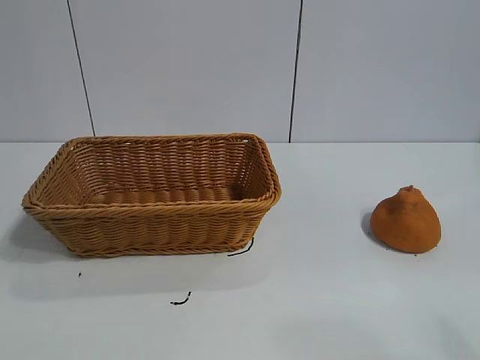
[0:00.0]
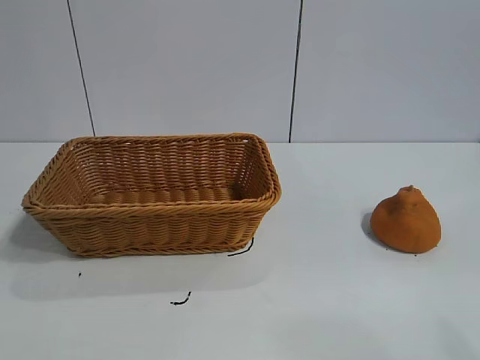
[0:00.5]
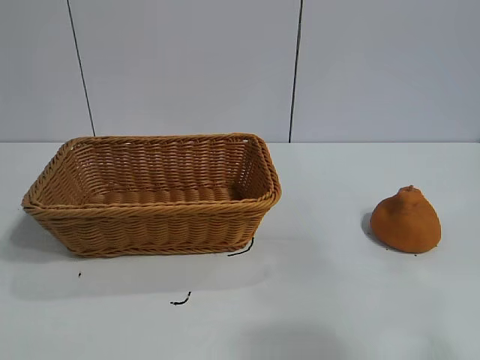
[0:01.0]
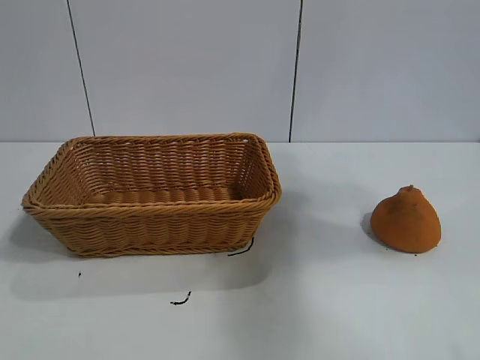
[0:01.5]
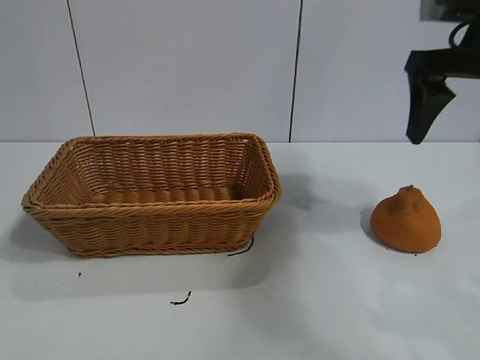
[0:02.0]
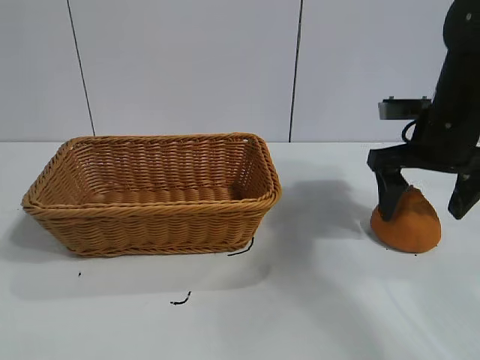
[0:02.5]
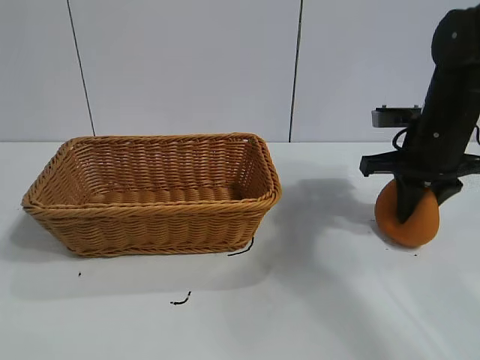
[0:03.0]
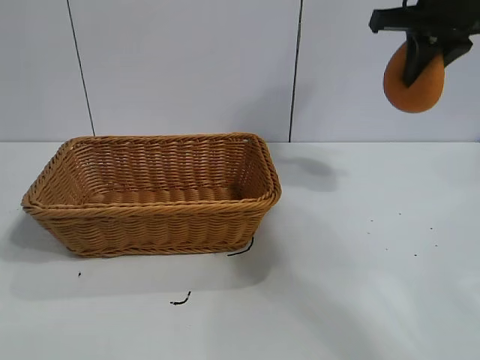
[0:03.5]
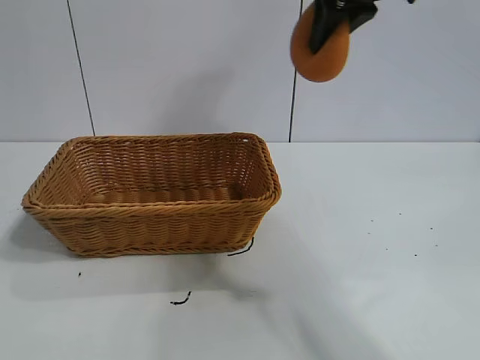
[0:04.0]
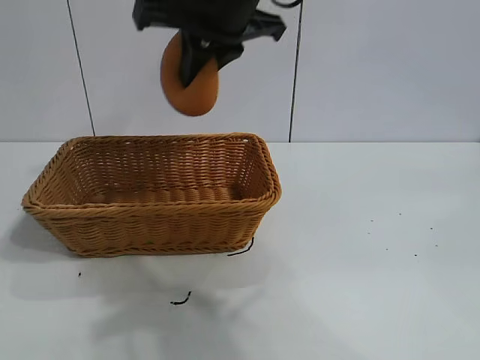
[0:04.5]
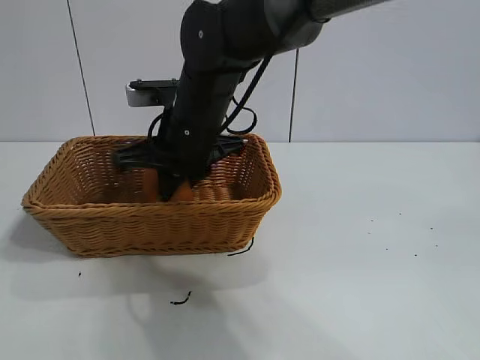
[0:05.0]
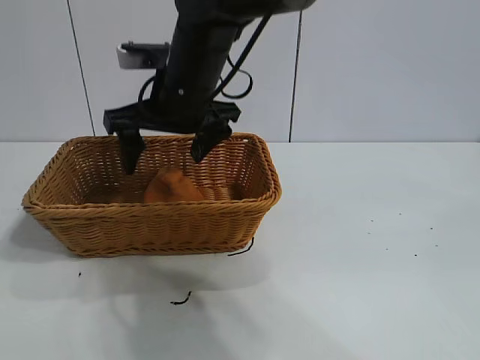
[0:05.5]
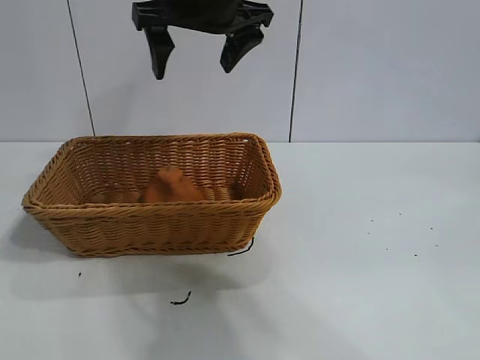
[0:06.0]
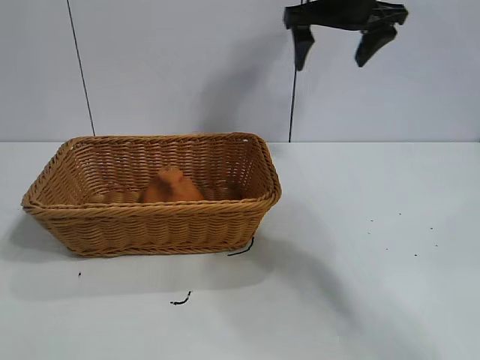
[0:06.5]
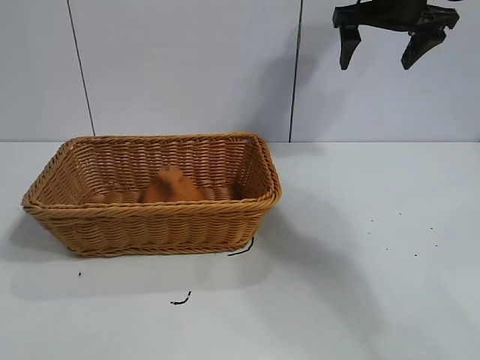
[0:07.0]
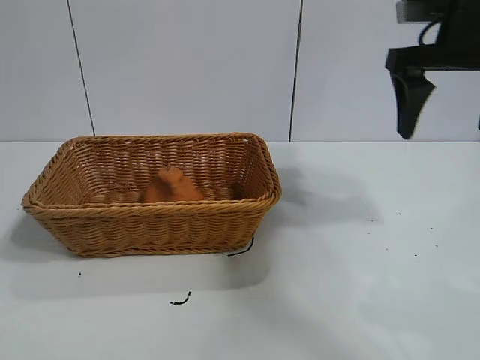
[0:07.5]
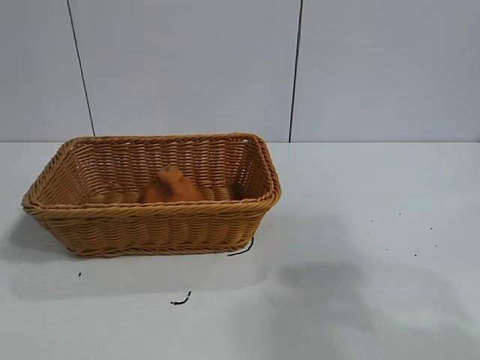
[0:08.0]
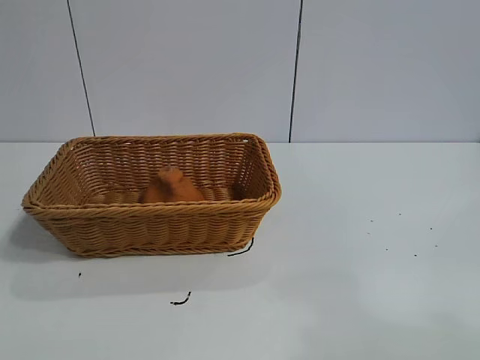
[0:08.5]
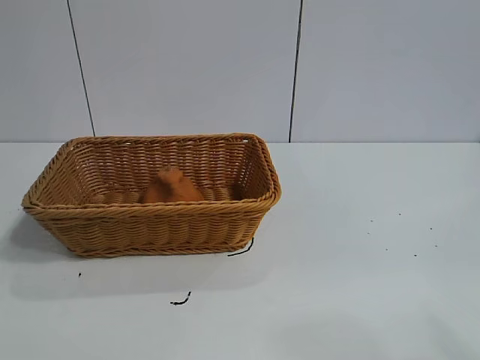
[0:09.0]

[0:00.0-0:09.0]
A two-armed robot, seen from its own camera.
Task of the whole recording: pick up the orange and put it into the basket.
Step, 0:01.0 to 0:03.0: Grasp the orange with right gripper.
Step, 0:03.5 to 0:05.0: Place the orange in the basket with right gripper.

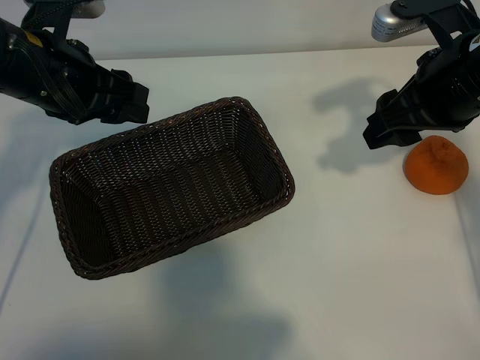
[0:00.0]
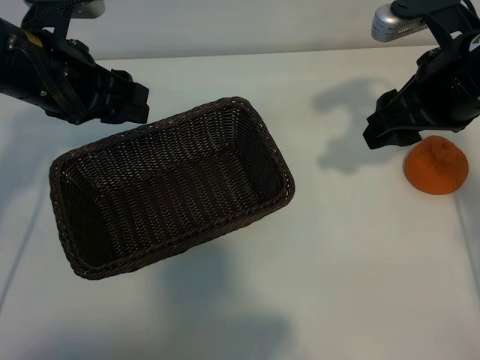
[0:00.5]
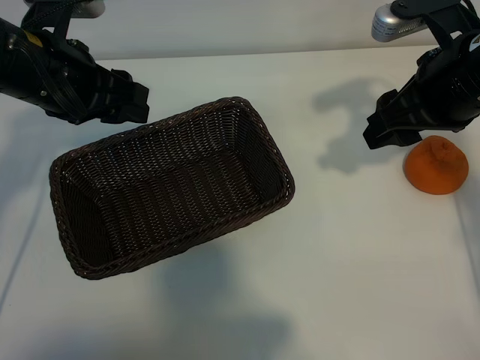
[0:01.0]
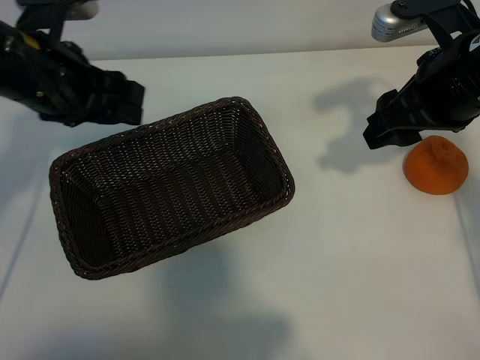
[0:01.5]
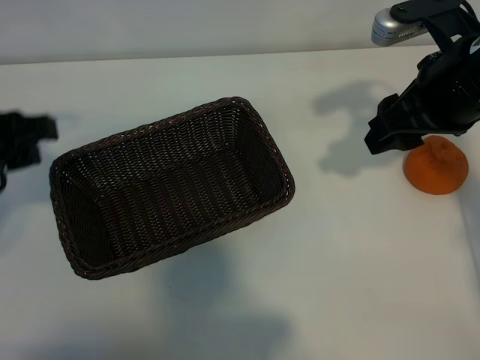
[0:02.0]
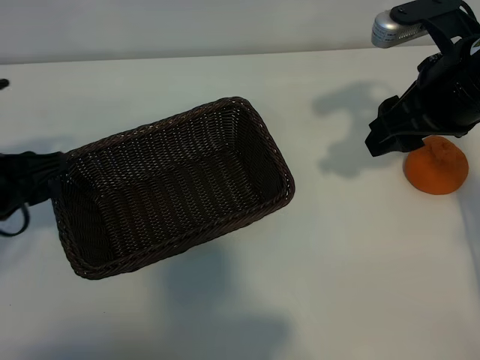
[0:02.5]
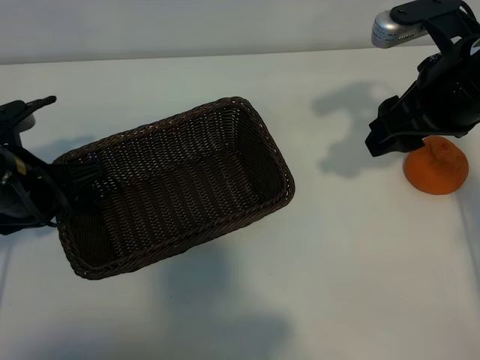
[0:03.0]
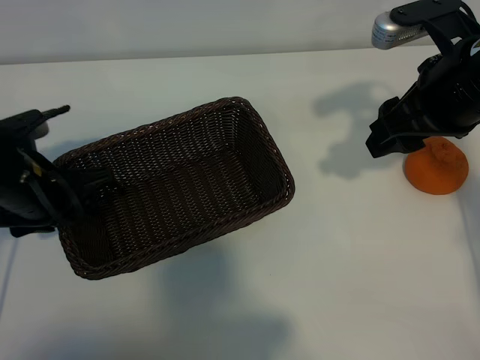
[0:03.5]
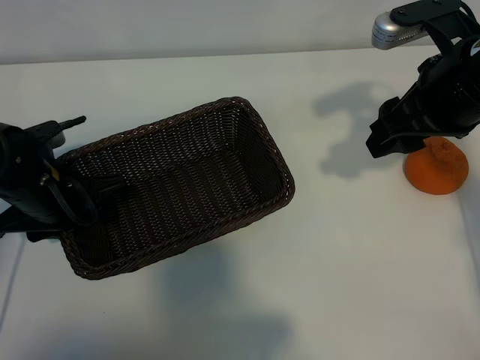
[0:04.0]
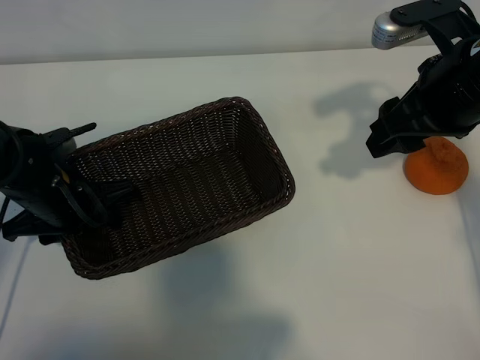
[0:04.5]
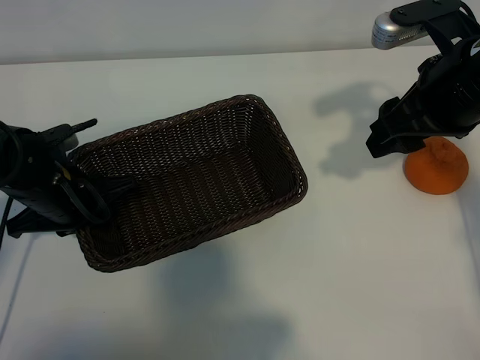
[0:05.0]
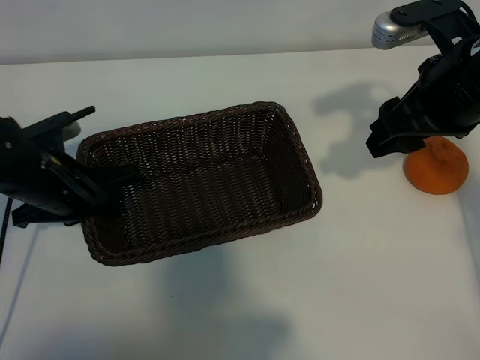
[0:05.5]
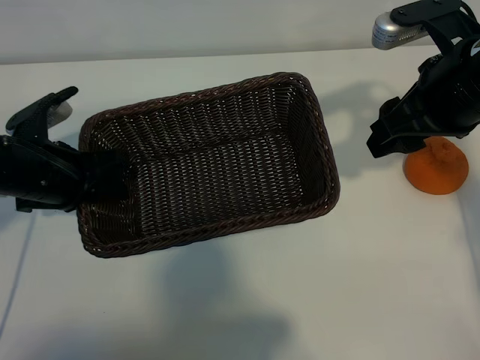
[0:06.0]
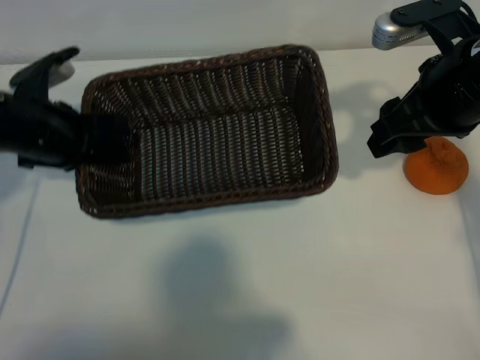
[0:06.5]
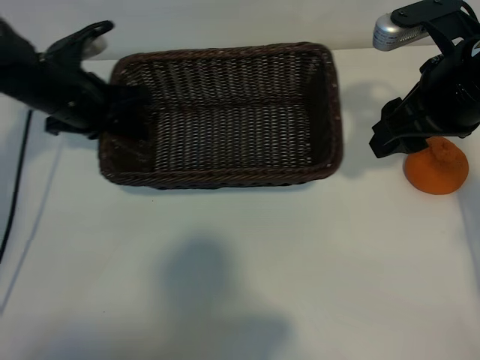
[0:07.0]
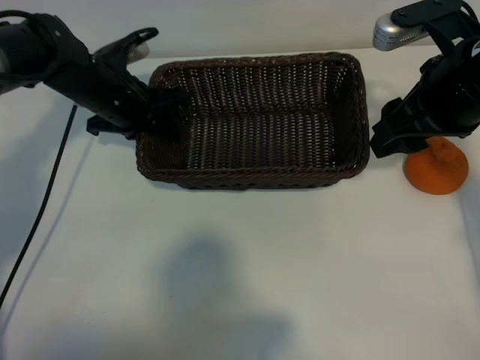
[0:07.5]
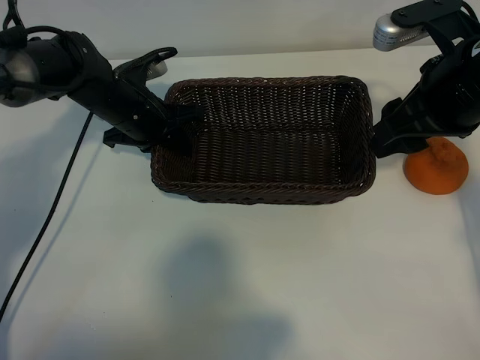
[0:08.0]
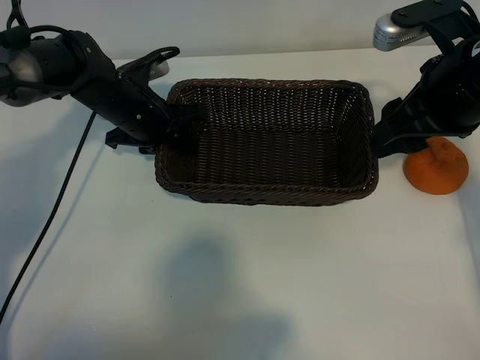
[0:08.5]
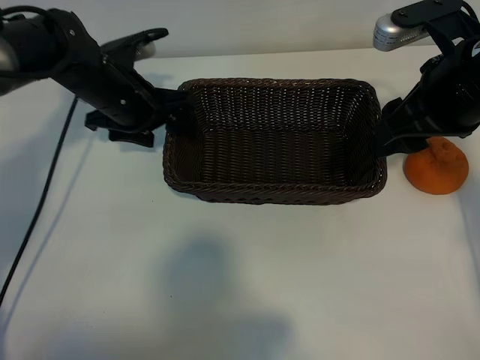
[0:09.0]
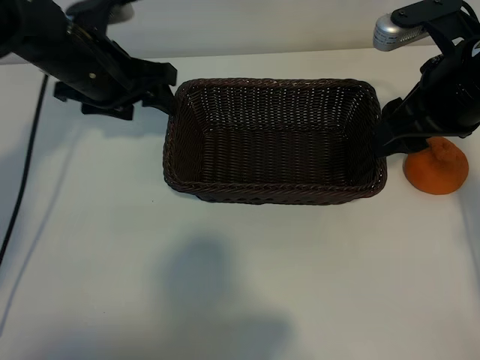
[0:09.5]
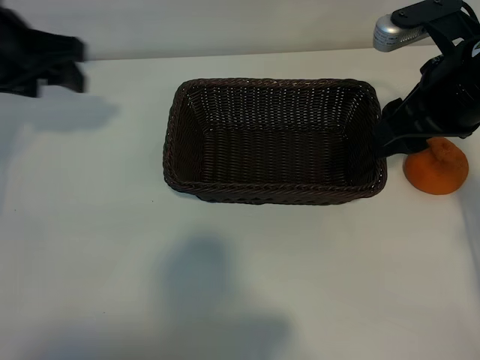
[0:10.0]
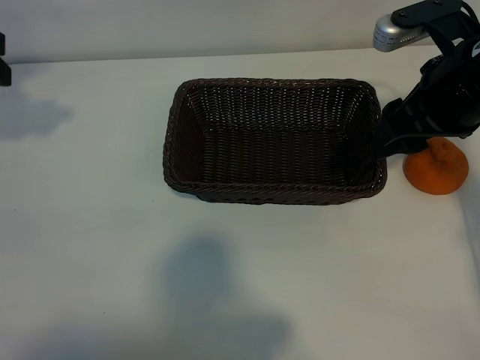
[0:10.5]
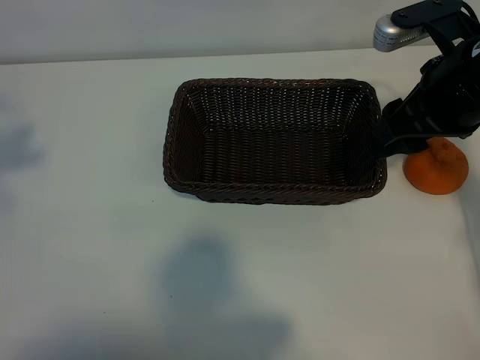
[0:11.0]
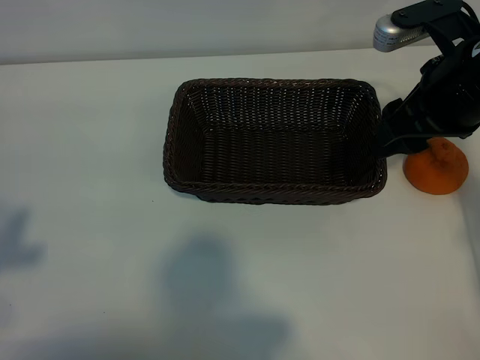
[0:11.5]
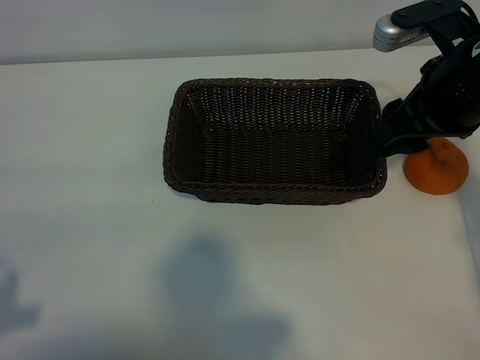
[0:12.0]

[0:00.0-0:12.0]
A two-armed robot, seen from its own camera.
Task of the whole recording: pick up the orange and put it into the basket.
Step, 0:01.5 to 0:04.5: Grasp the basket with left gripper.
Step, 0:05.0 to 0:08.5: Place the basket in the center of view with left gripper.

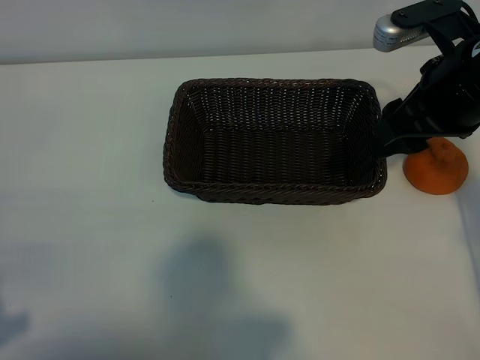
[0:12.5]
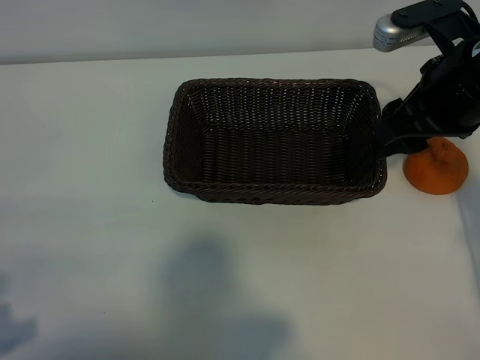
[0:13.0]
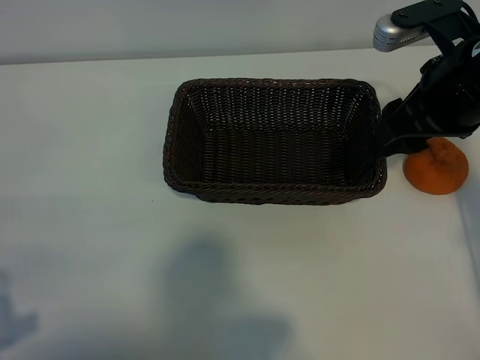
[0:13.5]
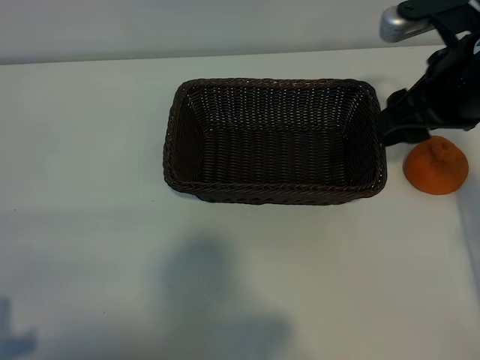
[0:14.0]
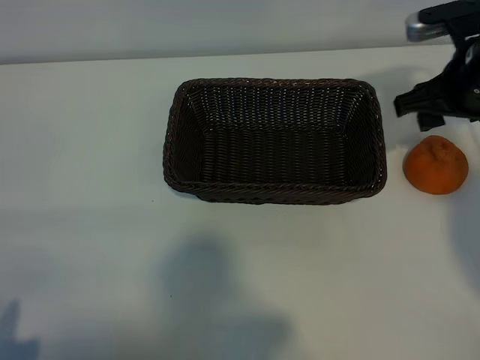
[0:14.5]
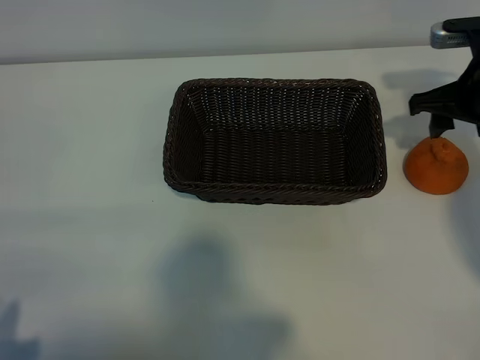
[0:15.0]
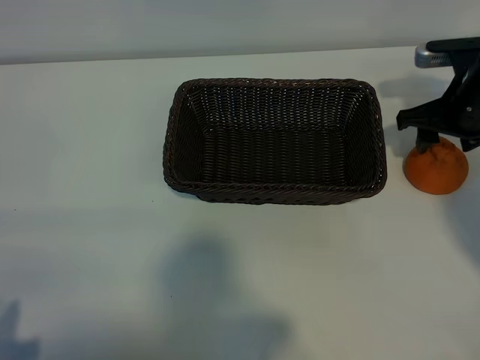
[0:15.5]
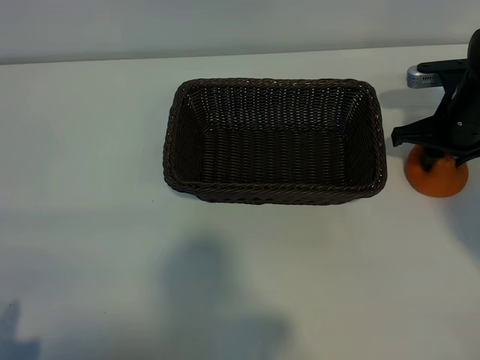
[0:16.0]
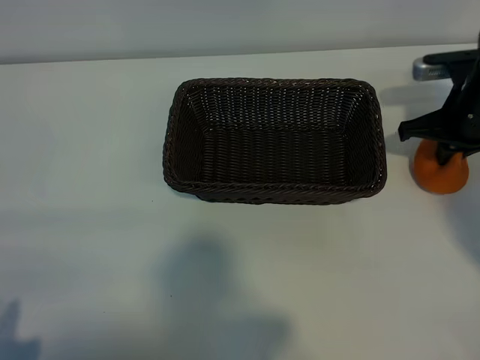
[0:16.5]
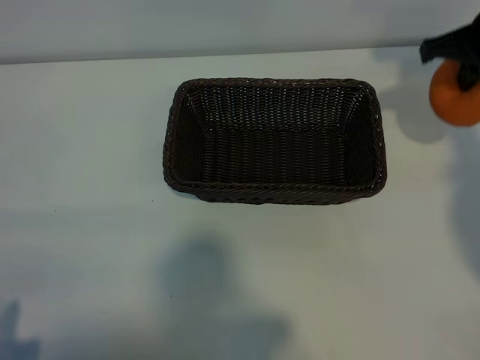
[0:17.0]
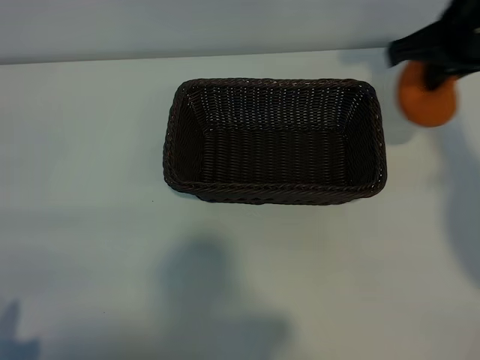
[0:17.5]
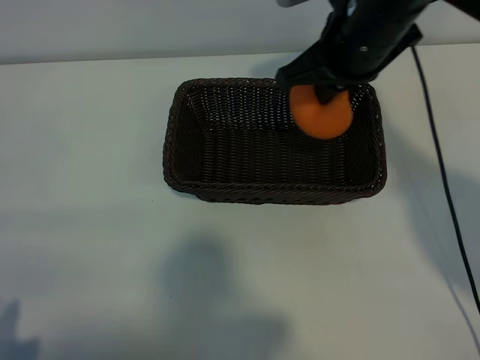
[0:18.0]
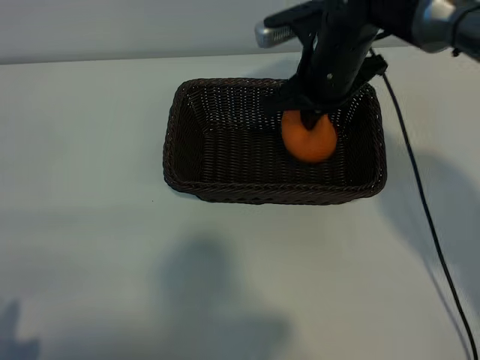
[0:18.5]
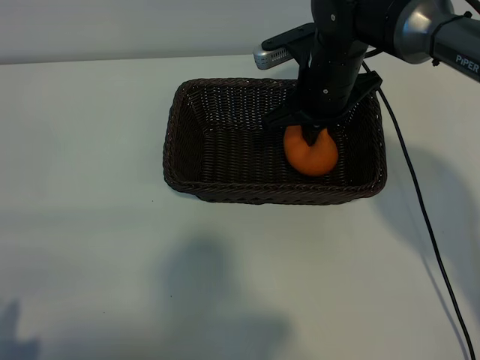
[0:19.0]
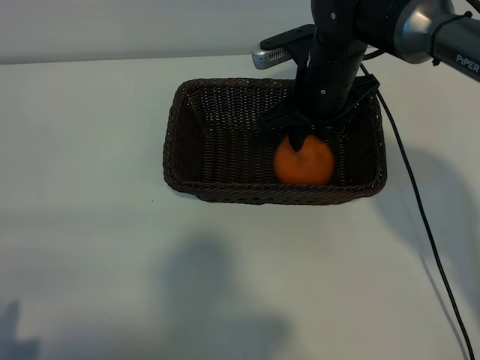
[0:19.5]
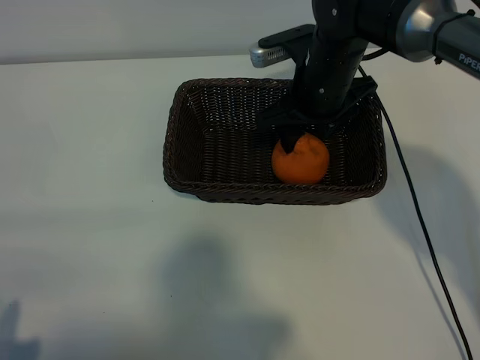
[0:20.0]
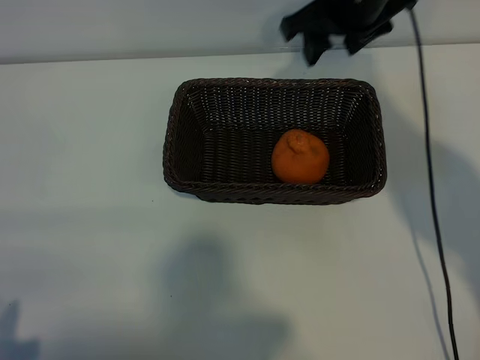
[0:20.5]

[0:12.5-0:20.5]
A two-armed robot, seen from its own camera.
Task of the whole recording: pick up the orange and put it into the basket.
Step, 0:12.5 to 0:16.0: Grasp the orange with right gripper.
Step, 0:16.5 to 0:19.5: Place the orange in the basket with right gripper.
